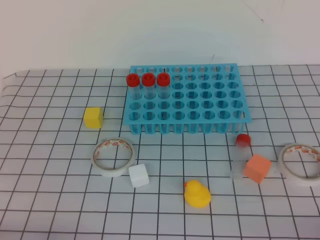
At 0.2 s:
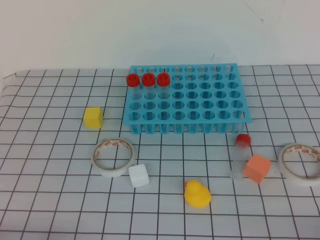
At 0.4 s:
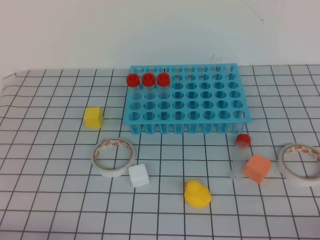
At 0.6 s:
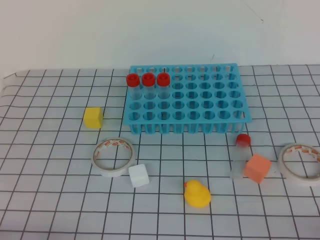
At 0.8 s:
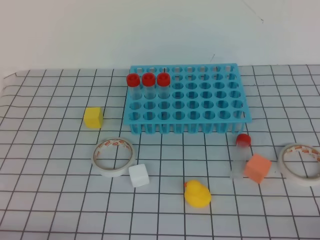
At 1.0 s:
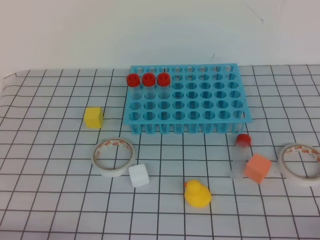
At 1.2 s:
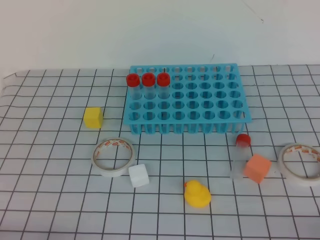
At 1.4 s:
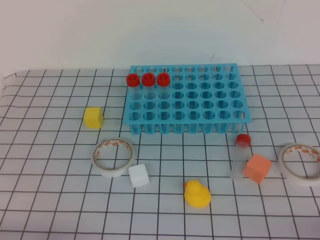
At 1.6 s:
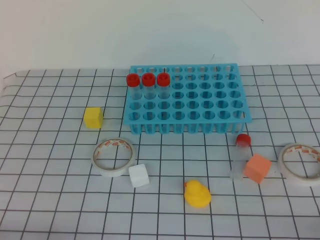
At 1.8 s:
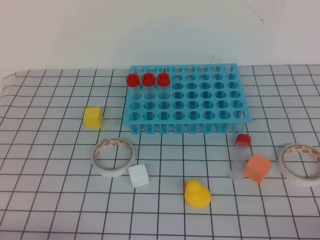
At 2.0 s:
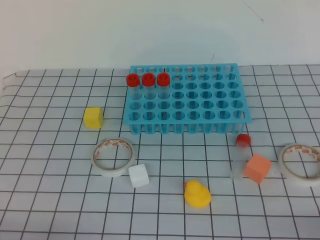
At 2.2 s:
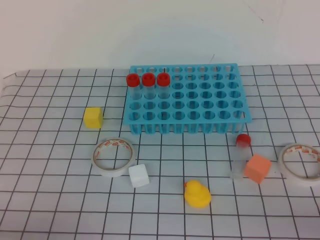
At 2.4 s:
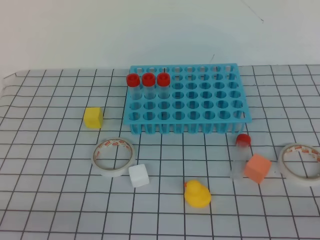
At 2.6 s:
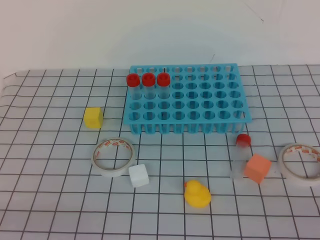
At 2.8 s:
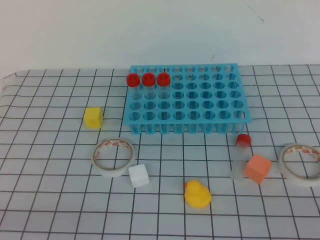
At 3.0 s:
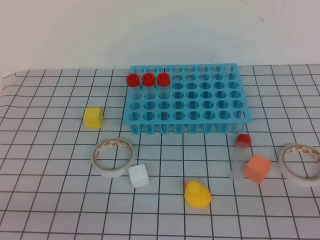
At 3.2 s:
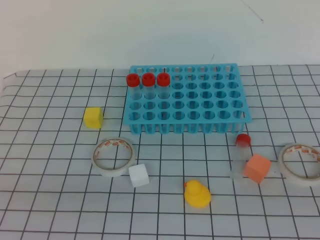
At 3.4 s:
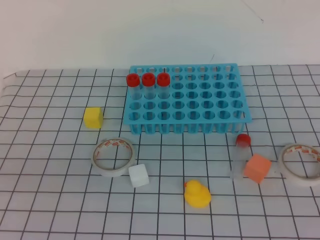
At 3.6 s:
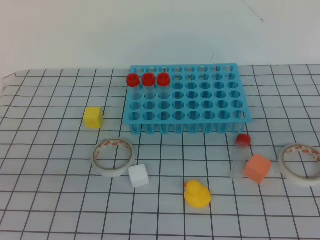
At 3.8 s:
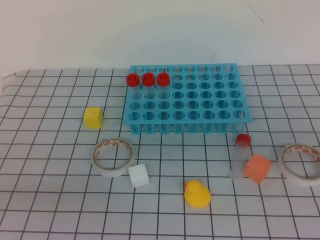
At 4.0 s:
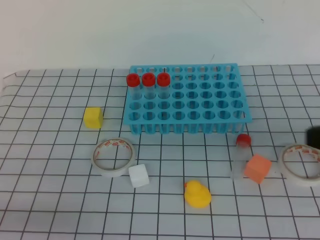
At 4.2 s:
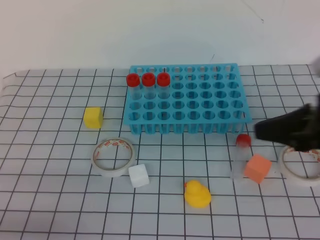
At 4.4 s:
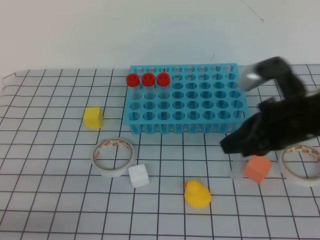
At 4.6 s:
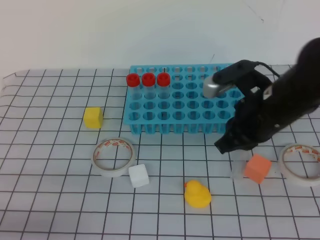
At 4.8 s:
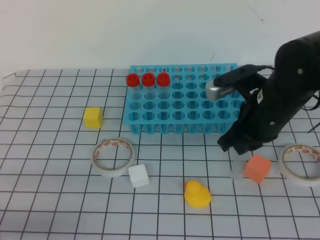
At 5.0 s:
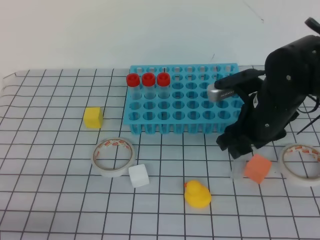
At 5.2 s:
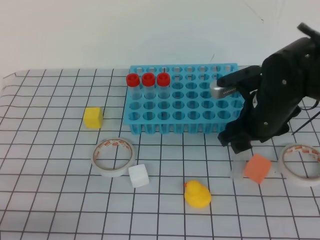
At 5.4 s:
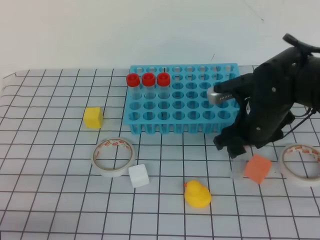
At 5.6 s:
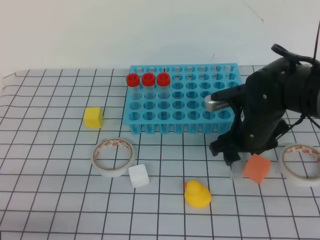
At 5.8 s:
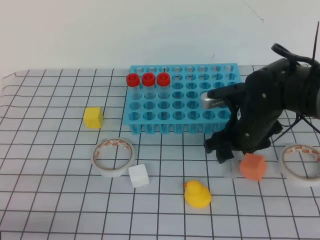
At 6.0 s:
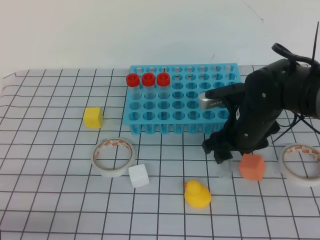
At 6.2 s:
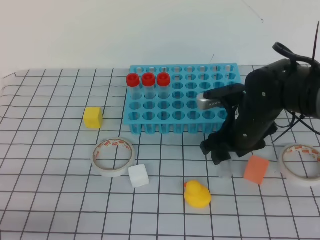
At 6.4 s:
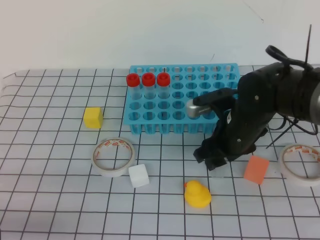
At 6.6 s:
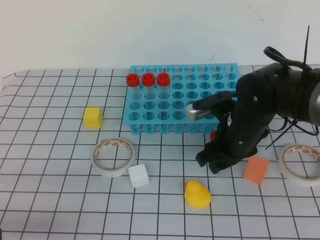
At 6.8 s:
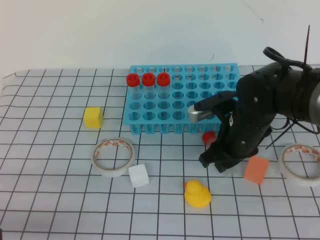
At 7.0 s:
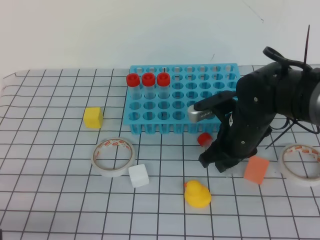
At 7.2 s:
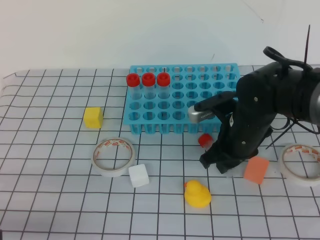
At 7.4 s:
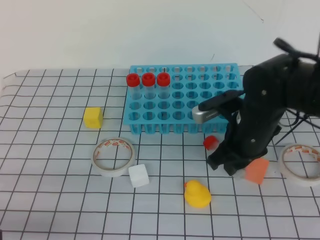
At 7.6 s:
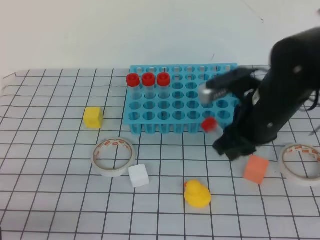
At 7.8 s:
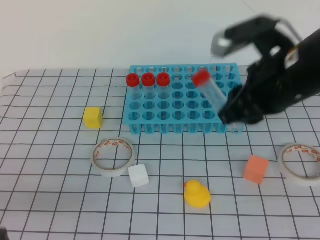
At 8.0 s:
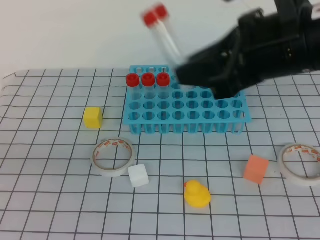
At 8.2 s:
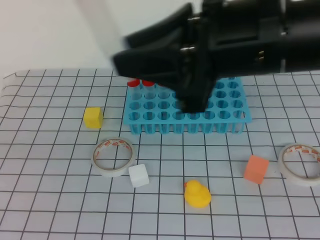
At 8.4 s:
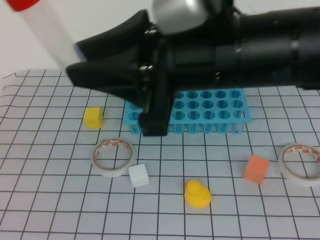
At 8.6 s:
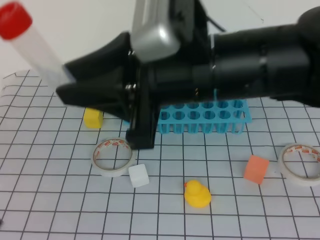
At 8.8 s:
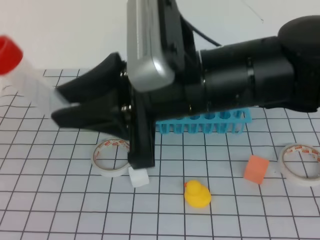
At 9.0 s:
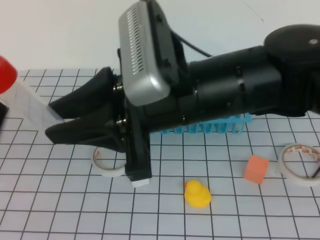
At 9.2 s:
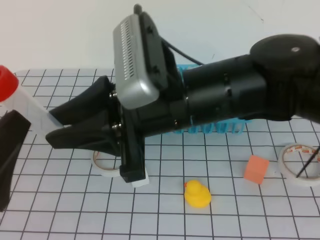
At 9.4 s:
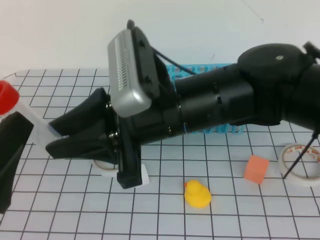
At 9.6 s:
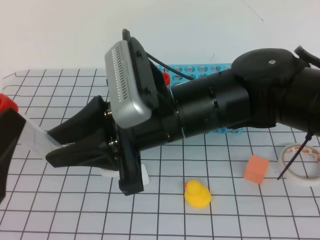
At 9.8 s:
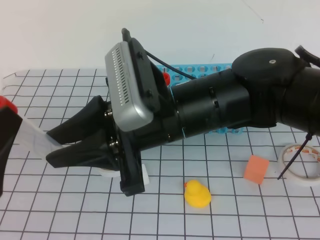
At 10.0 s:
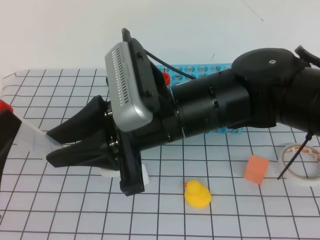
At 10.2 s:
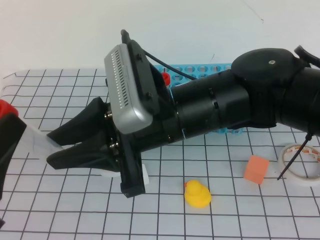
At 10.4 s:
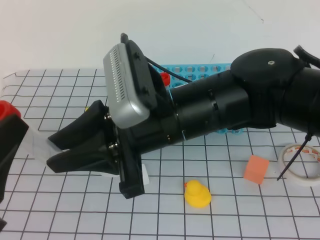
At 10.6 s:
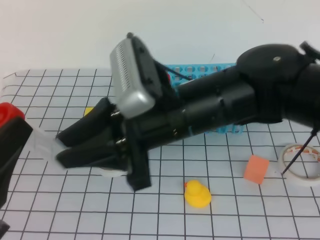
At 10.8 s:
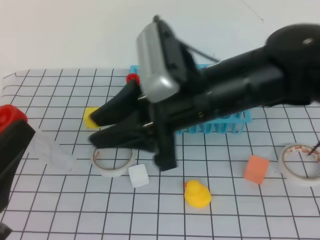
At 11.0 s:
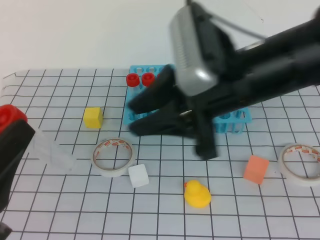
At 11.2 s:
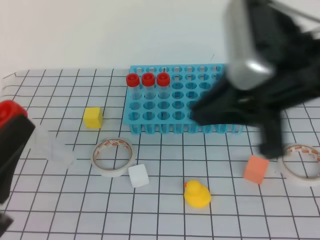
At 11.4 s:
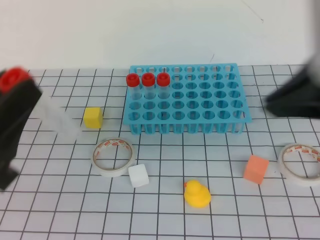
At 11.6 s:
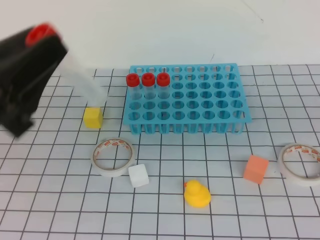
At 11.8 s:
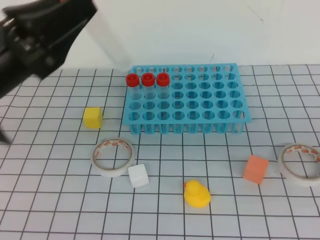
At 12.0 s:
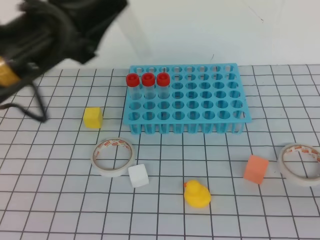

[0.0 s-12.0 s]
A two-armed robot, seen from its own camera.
0.0 to 1.6 s: Both grippers stay about where they are.
3.0 to 4.4 s: The right gripper heads forward and to the left, covering about 30 cm.
4.4 to 6.0 s: The right gripper heads downward, forward and to the left, covering some 15 cm, and opens up.
6.0 to 7.6 s: The right gripper shifts roughly 5 cm upward, and closes its fingers.
7.6 to 9.0 s: The right gripper shifts roughly 15 cm to the left, upward and backward, while the left gripper travels upward by roughly 10 cm, and opens.
10.4 to 12.0 s: The left gripper goes roughly 20 cm forward. The right gripper moves to the right and backward, roughly 30 cm, and closes its fingers.

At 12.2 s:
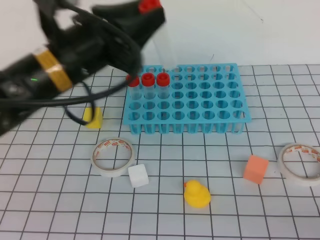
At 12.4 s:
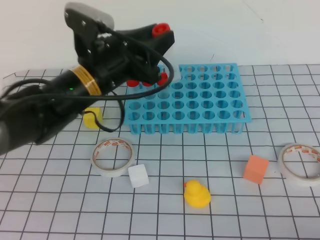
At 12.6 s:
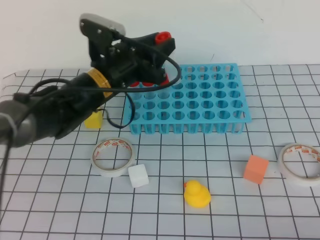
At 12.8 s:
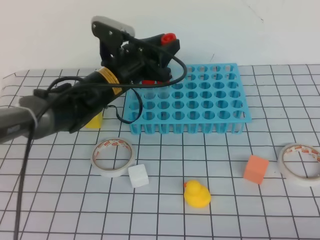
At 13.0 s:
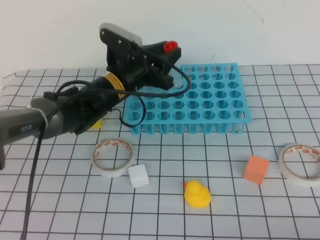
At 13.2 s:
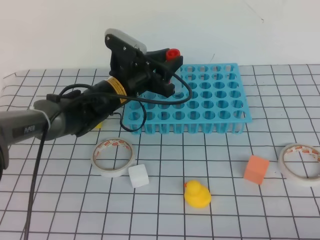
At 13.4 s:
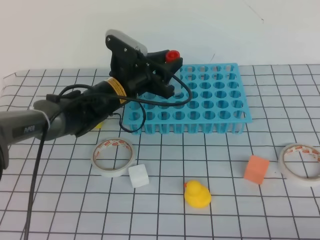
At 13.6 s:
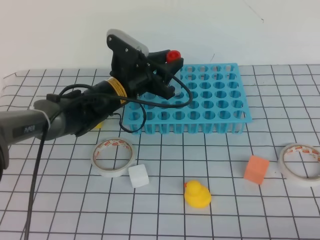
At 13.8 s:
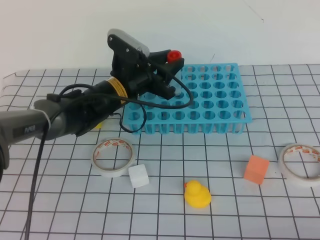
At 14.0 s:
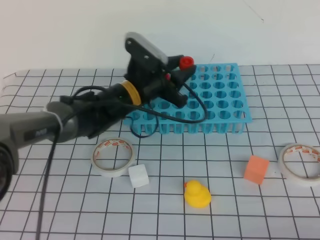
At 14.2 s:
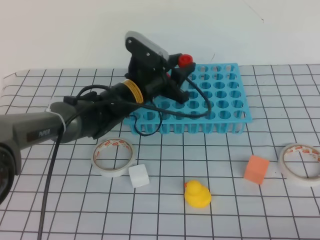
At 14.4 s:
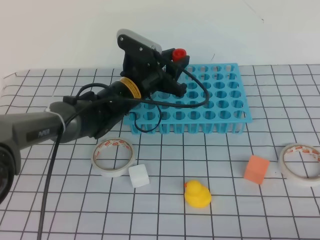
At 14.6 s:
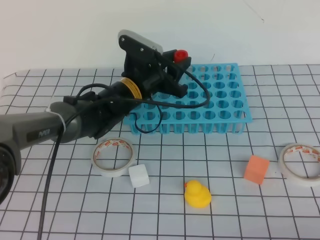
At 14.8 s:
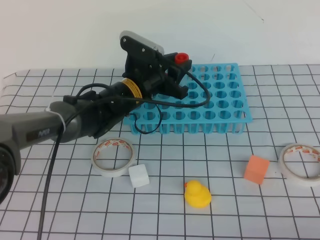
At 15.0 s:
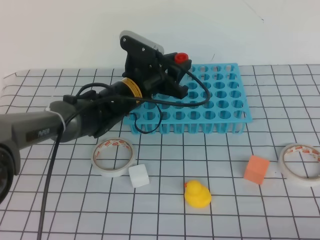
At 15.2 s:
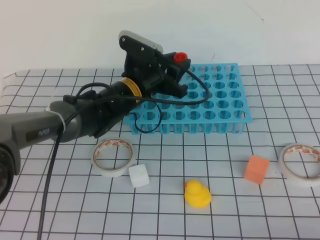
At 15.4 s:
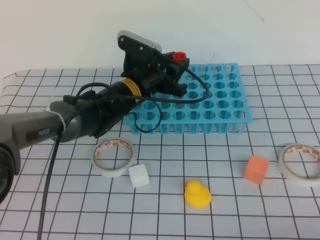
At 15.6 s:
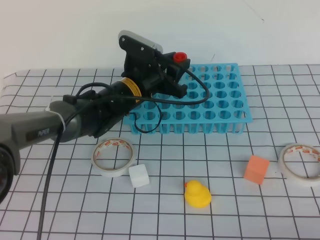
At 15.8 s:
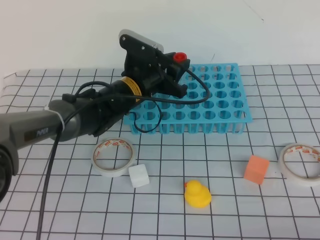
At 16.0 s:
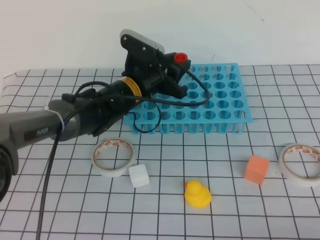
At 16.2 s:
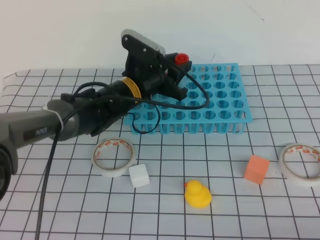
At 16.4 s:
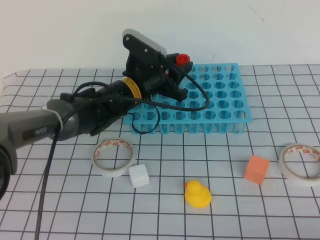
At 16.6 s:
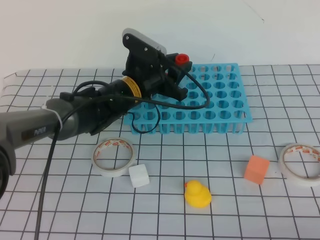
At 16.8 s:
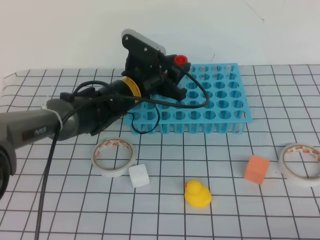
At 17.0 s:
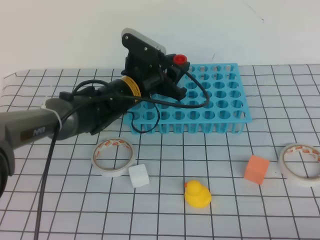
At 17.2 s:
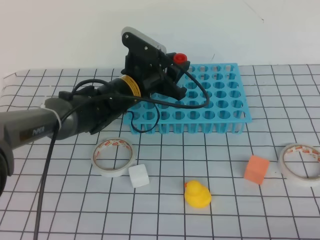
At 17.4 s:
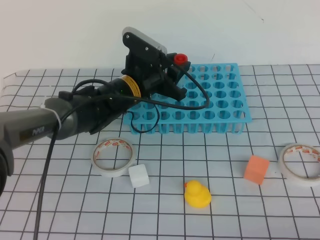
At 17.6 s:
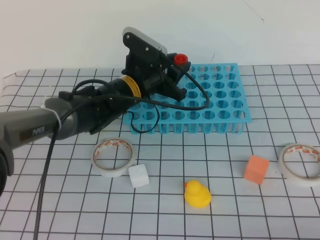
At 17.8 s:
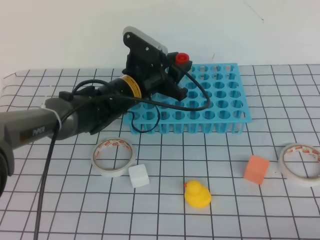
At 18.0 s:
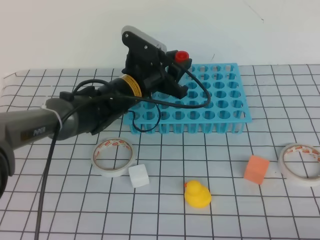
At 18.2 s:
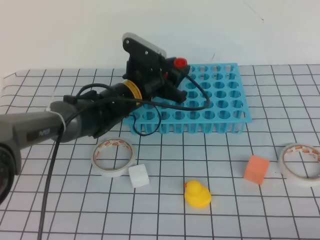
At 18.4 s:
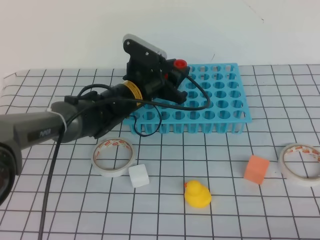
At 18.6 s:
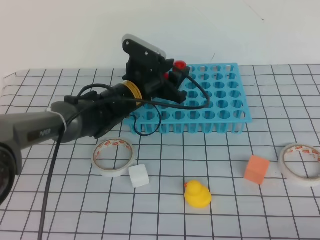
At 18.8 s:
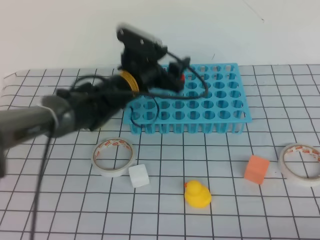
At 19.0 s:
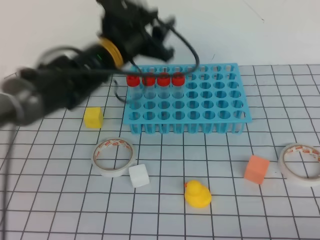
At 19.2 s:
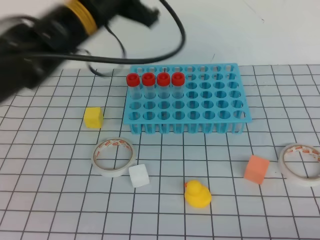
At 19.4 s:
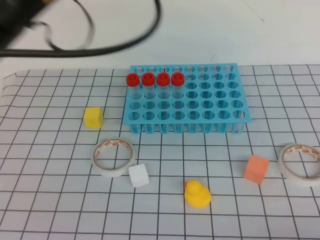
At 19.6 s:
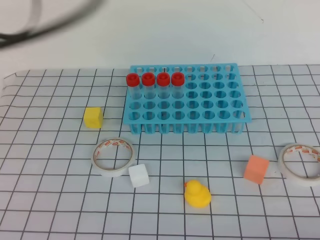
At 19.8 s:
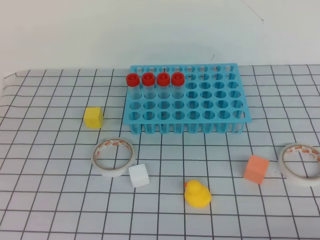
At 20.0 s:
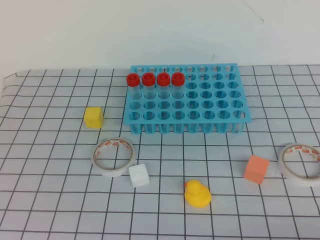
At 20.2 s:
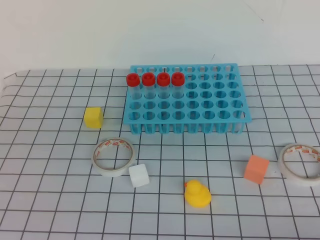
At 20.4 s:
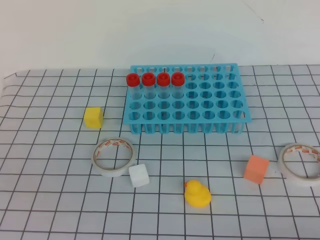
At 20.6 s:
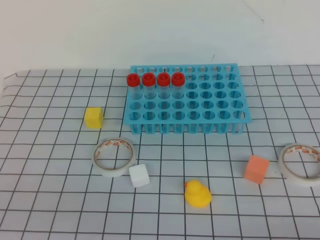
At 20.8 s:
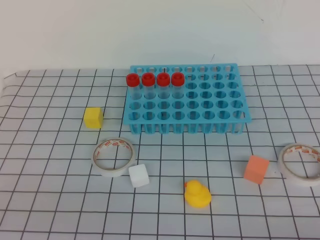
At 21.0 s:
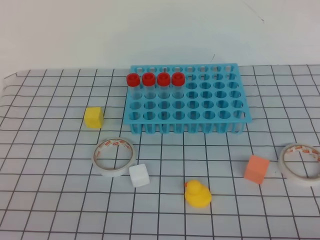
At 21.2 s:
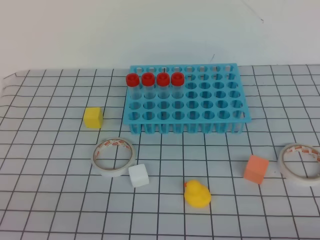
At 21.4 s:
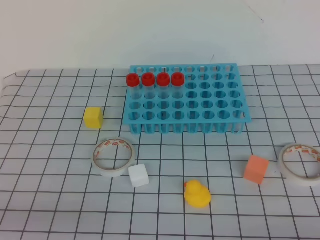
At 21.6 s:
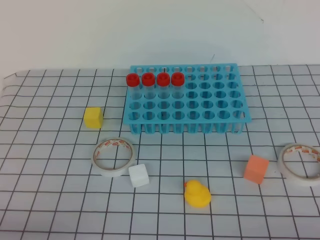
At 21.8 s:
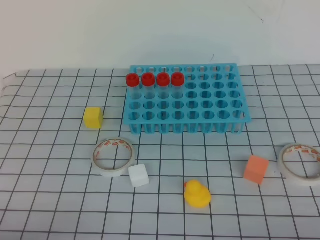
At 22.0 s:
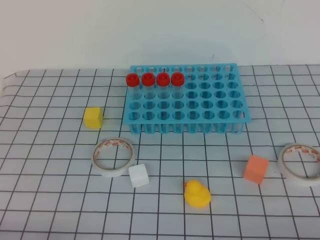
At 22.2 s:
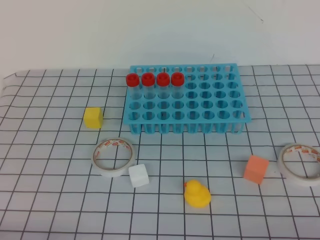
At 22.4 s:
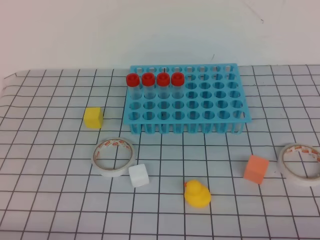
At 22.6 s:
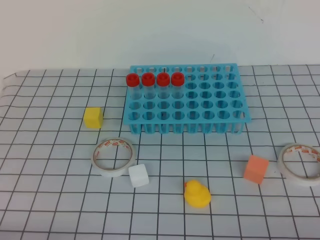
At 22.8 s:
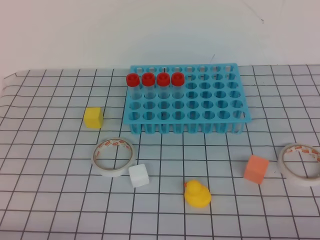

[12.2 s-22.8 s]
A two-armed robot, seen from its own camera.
12.2 to 13.8 s: The right gripper heads downward, covering about 5 cm. Meanwhile the left gripper travels downward, forward and to the right by approximately 20 cm.
13.8 to 16.8 s: The grippers stay close to where they were, moving slightly.
16.8 to 18.2 s: The two grippers keep their place.
18.2 to 19.8 s: The left gripper is displaced upward, backward and to the left by approximately 40 cm, and closes its fingers.
19.8 to 21.2 s: The left gripper heads downward and backward, covering some 30 cm.
